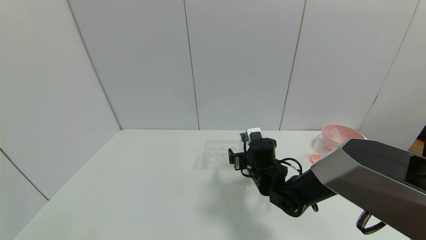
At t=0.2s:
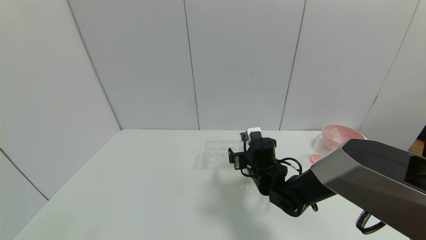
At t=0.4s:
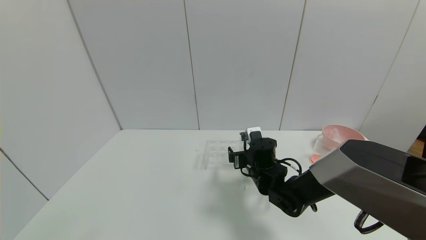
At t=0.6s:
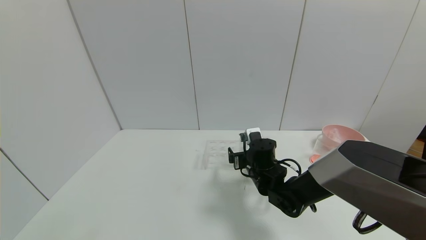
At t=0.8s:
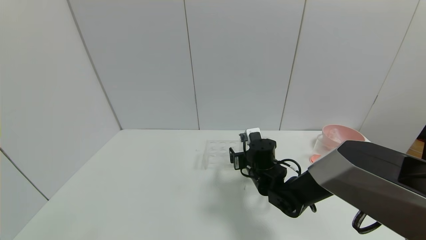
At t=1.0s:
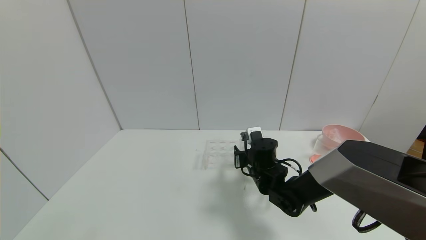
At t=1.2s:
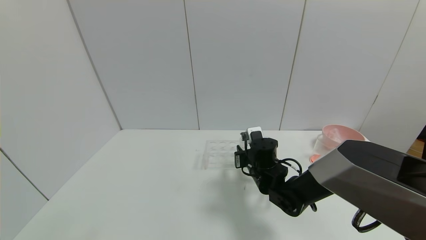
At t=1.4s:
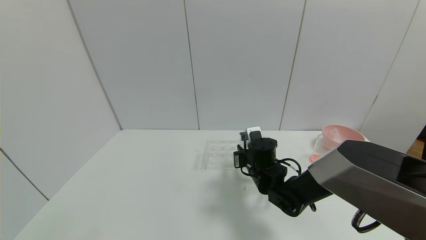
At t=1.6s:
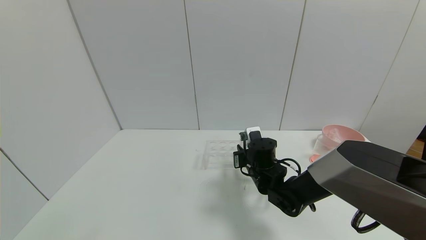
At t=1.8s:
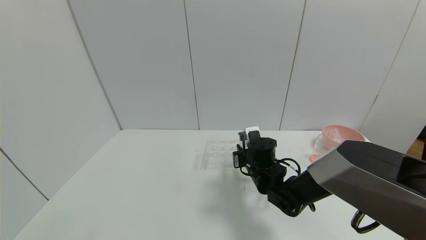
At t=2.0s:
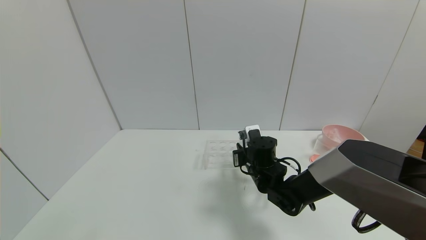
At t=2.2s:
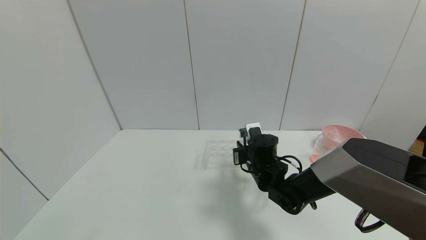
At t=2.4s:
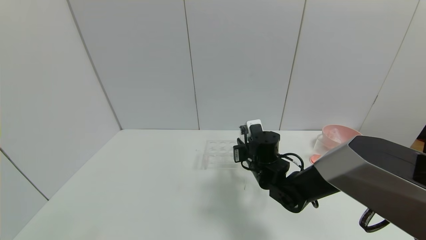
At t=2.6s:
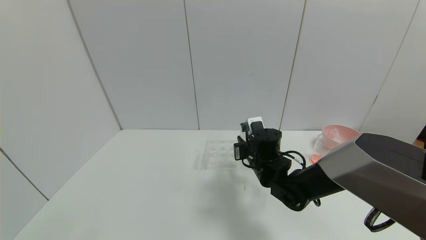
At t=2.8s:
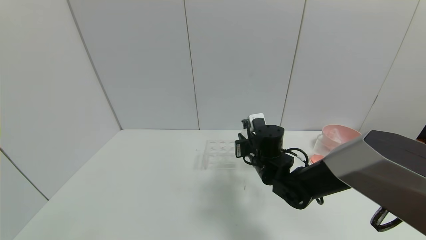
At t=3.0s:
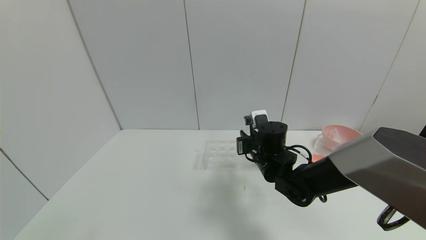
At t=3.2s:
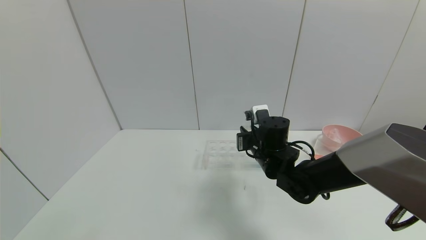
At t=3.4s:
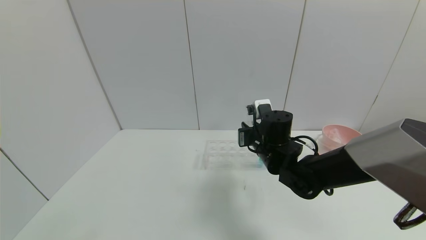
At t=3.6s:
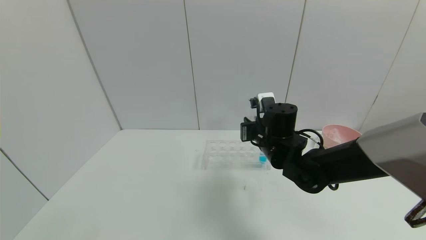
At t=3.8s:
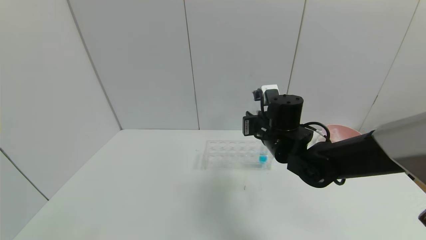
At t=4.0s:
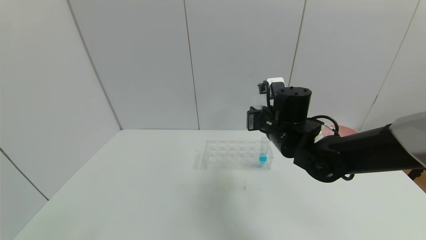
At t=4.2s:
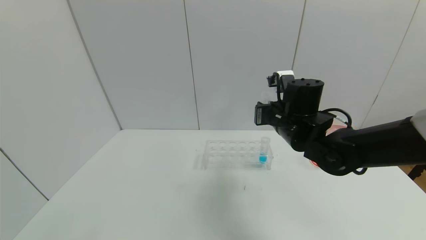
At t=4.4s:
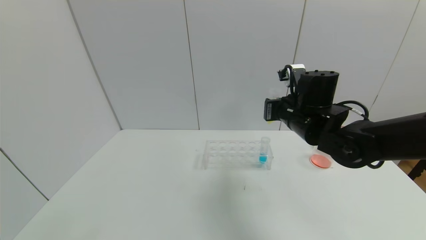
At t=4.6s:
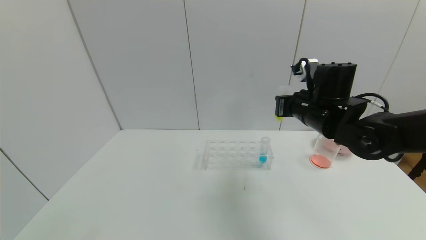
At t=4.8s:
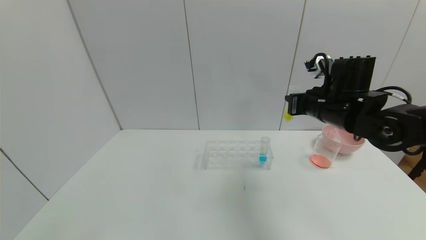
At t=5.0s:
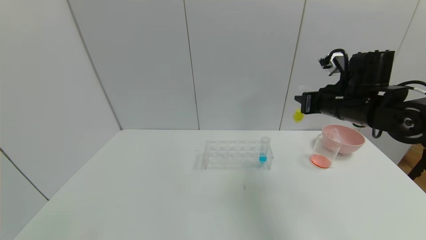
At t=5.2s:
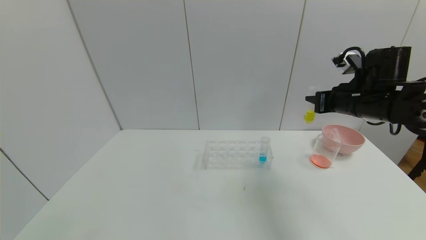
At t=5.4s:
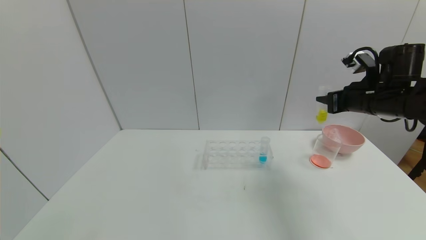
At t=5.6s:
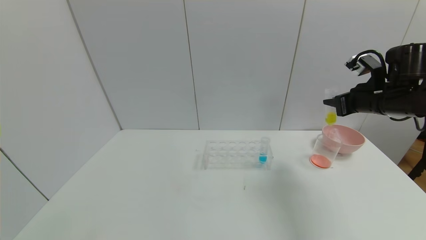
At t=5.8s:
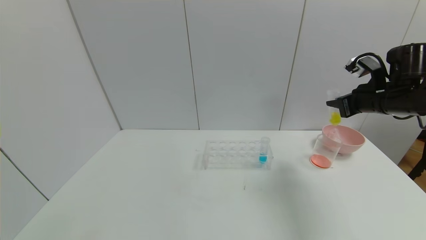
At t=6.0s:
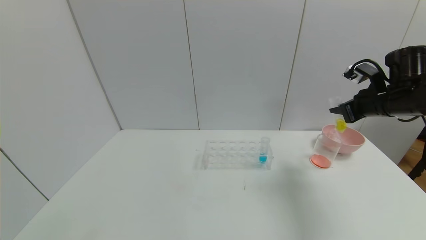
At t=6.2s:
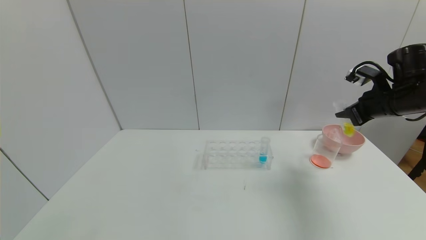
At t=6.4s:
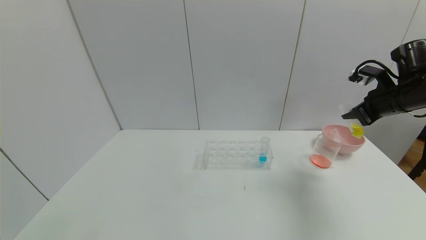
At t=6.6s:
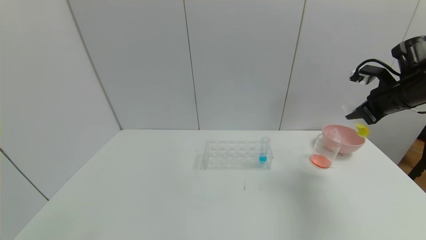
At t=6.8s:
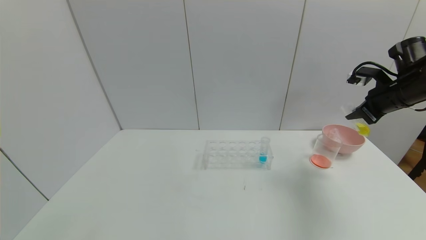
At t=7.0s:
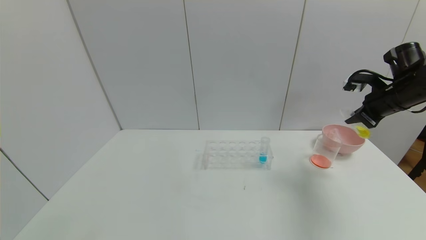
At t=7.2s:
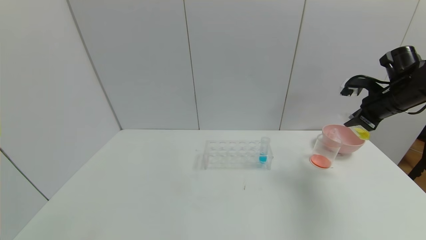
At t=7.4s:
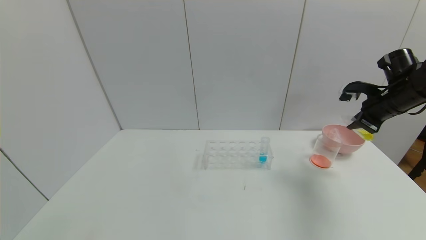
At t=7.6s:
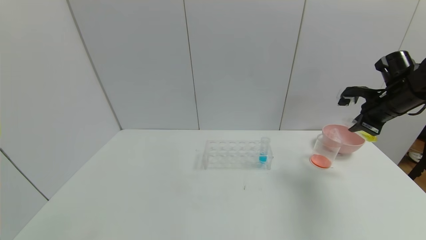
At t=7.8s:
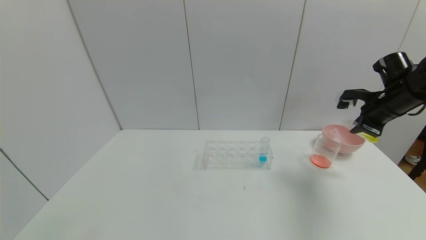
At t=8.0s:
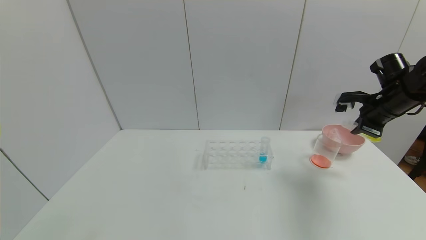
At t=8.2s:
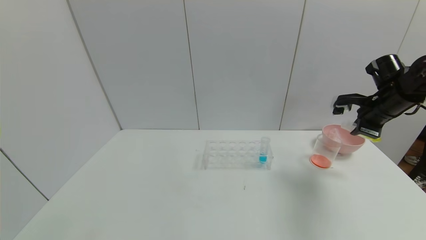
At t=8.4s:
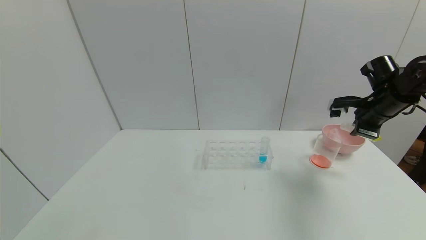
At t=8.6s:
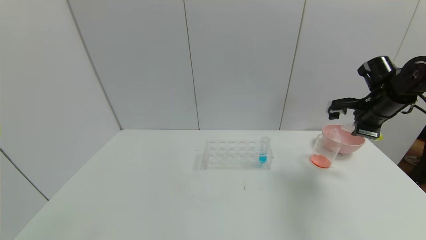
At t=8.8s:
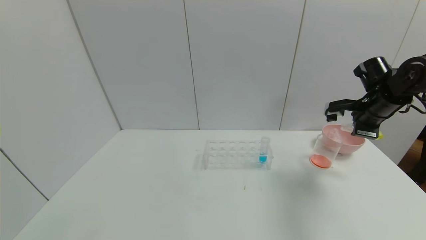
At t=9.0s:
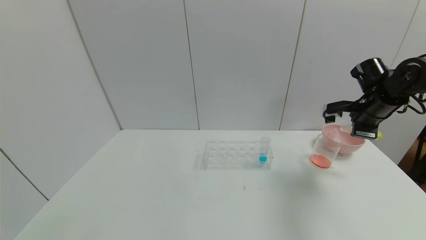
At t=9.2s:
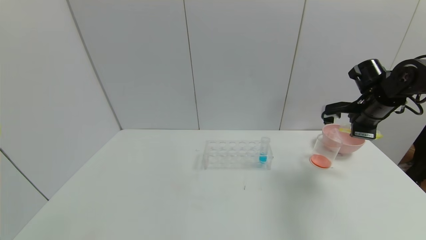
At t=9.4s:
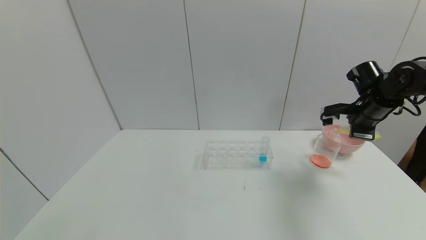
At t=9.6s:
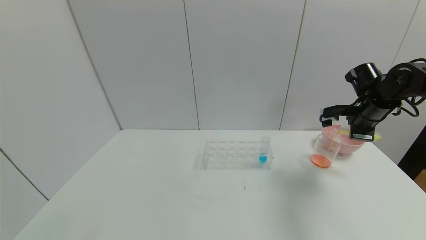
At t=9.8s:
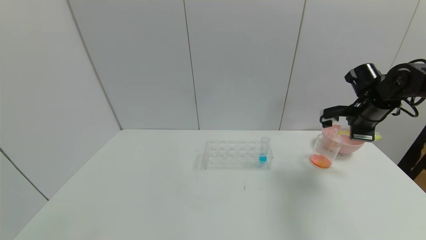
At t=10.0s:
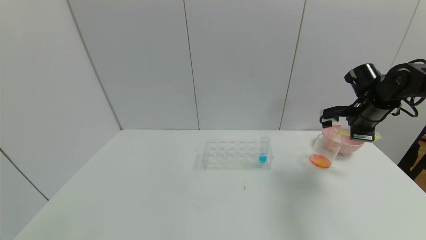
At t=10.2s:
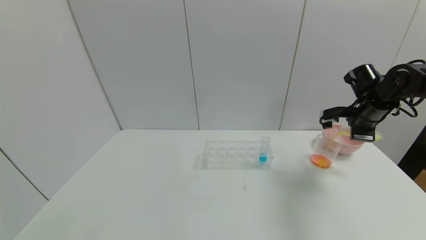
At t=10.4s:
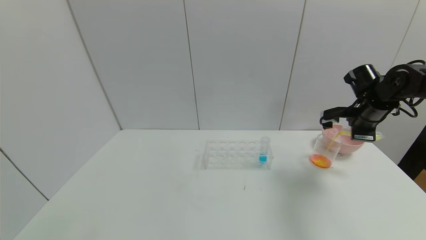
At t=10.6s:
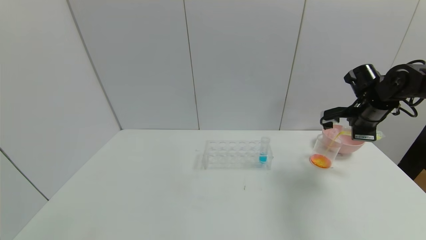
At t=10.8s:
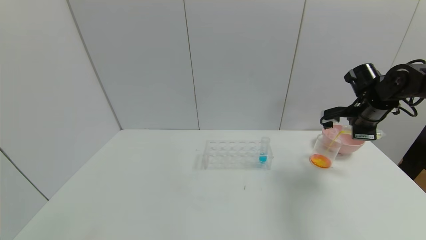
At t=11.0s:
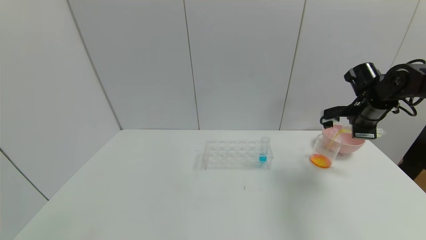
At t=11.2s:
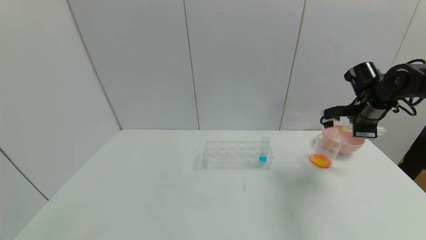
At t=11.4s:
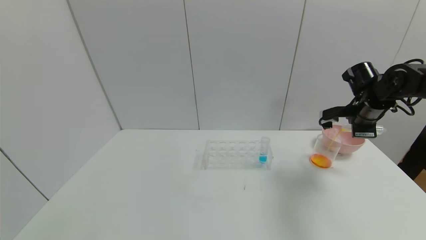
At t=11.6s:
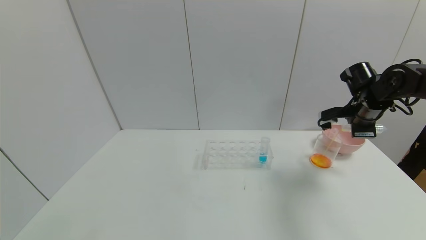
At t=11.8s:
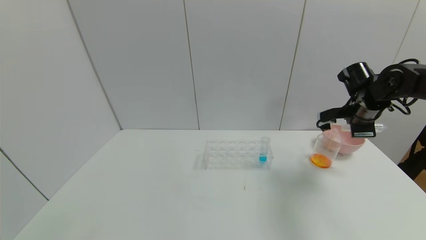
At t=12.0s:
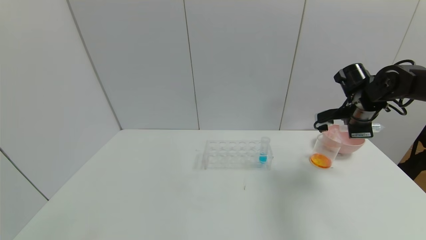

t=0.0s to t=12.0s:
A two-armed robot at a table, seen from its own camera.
Task of the whole recording: pick up the test tube with yellow pigment and the test tube with red pigment by grippers and pour them into the beaker.
t=0.0s to t=1.6s: The right gripper closes.
t=1.6s to t=3.0s: The right gripper shifts roughly 5 cm upward.
t=3.0s to t=4.4s: The right gripper is displaced upward and to the right by some 15 cm.
t=4.4s to t=6.0s: The right gripper heads to the right, covering roughly 20 cm.
t=9.0s to t=12.0s: The grippers make only small movements.

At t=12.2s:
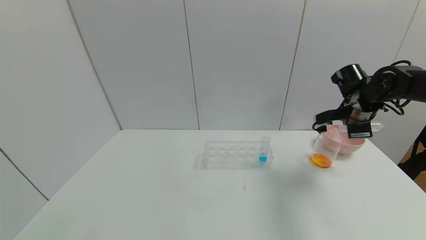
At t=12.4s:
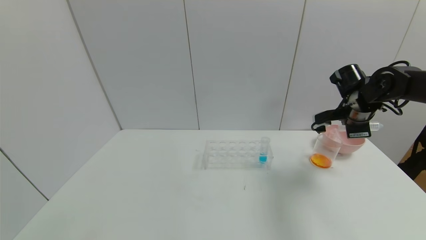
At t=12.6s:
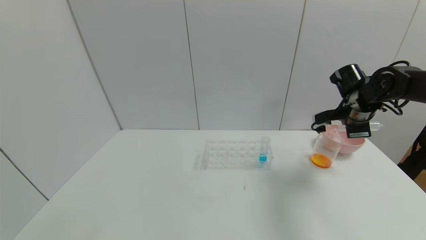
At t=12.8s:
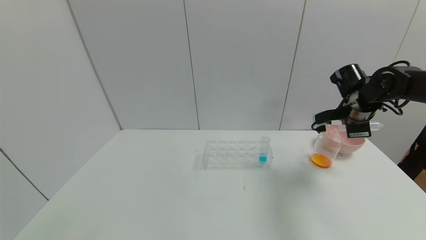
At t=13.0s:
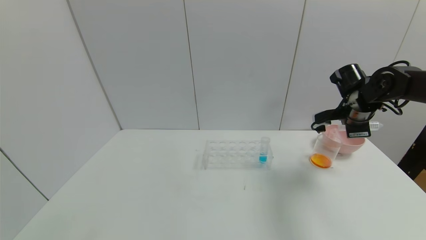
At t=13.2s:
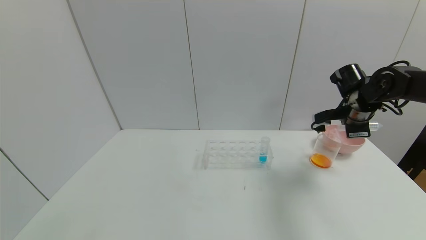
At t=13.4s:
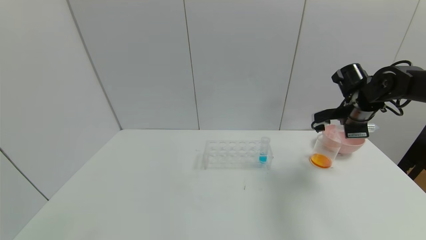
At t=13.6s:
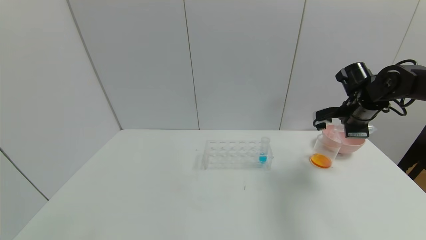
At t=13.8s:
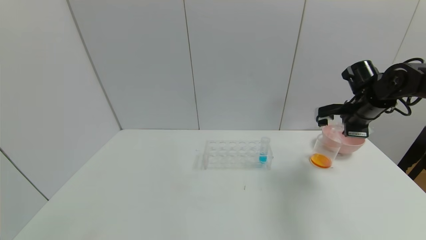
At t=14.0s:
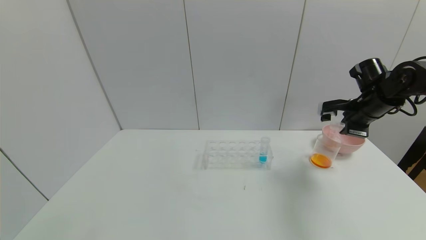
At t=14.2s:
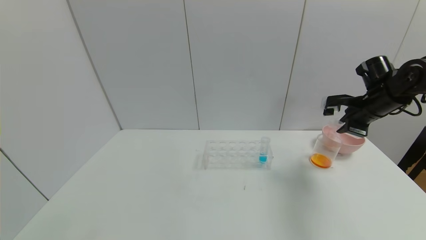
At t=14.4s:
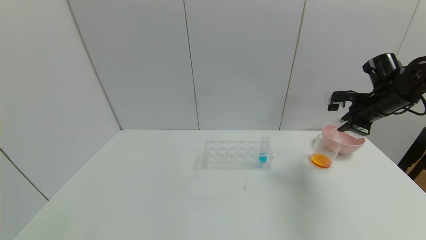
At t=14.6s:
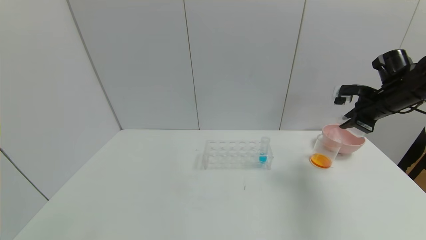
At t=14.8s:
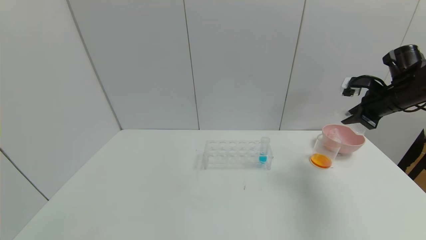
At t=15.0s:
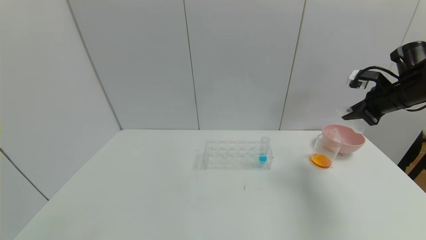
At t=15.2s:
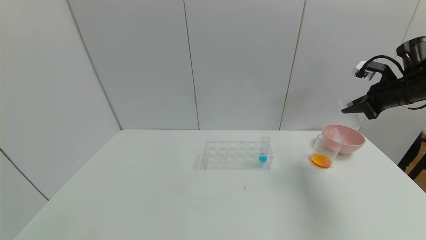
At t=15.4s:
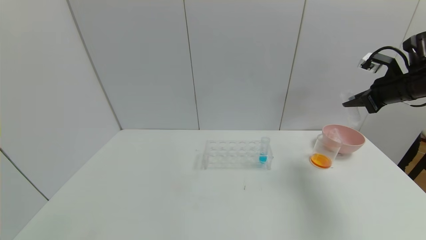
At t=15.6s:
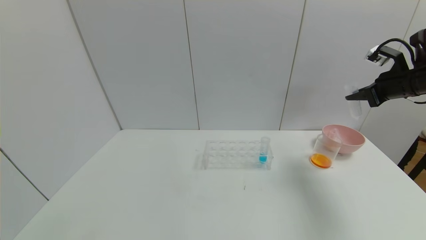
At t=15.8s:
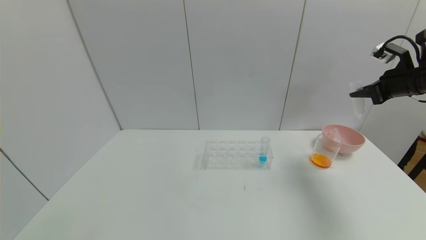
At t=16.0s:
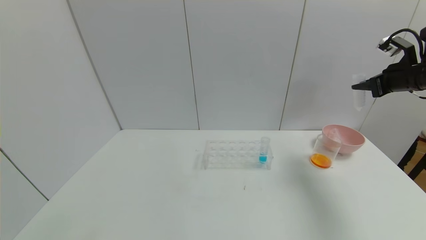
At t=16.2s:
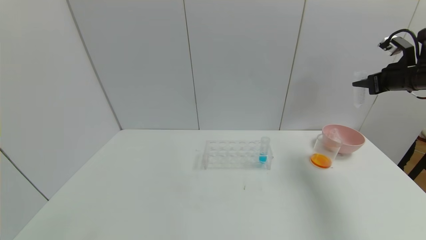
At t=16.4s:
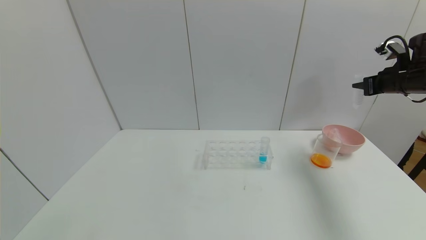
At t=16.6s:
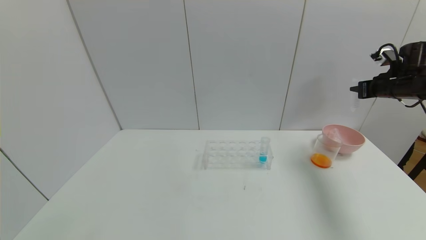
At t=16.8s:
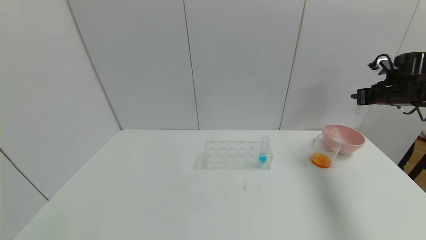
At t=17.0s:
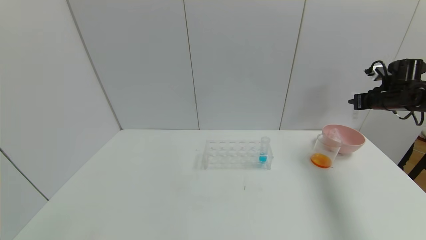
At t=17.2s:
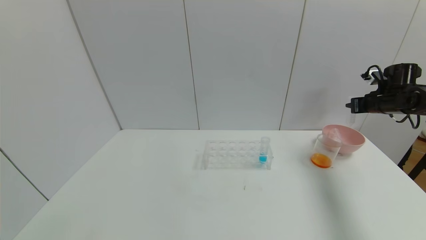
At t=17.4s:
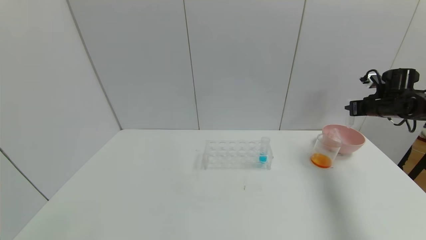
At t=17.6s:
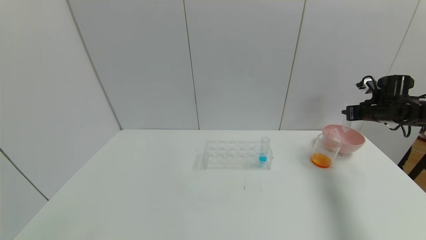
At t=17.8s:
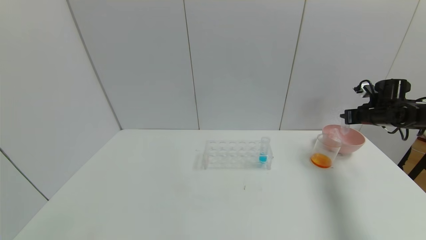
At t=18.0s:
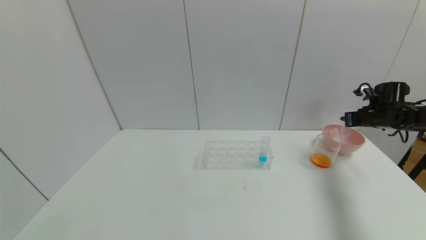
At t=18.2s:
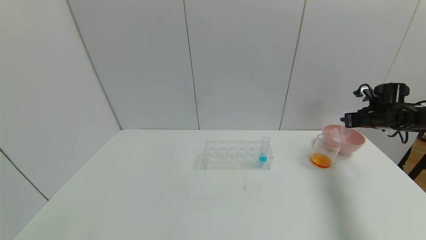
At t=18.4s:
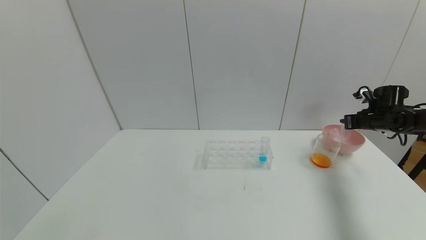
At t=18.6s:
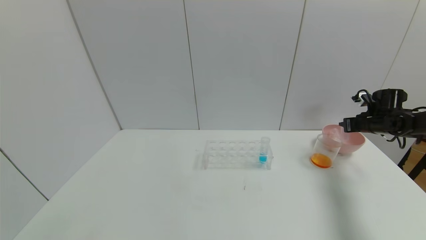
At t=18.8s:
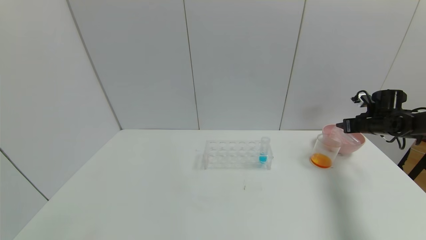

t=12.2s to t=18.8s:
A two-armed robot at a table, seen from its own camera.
Task of the whole recording: pick up the test tube with yellow pigment and the test tube with red pigment by grippers and pour them into the beaker.
t=12.2s to t=13.8s: The grippers move only a little.
t=13.8s to t=15.4s: The right gripper heads to the right and upward, covering about 10 cm.
t=15.4s to t=17.2s: The right gripper is displaced forward, downward and to the right by about 10 cm.
t=17.2s to t=18.8s: The right gripper moves downward, roughly 5 cm, and opens its fingers.
